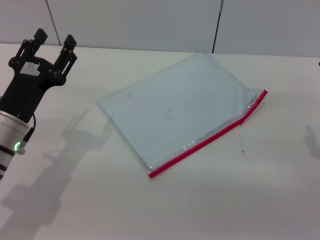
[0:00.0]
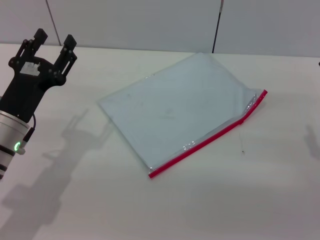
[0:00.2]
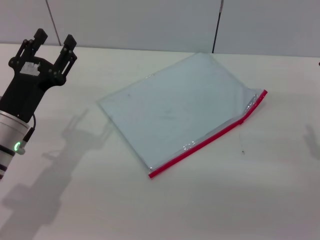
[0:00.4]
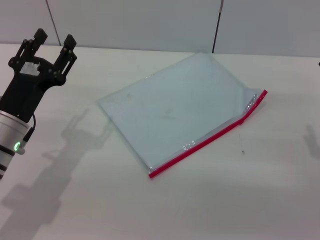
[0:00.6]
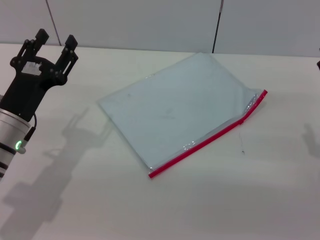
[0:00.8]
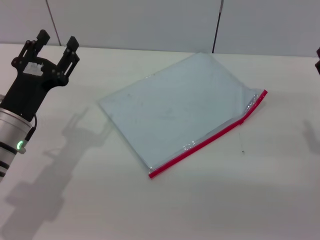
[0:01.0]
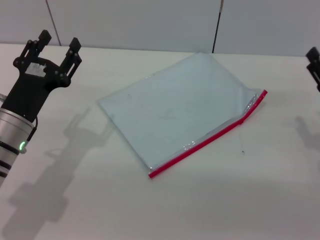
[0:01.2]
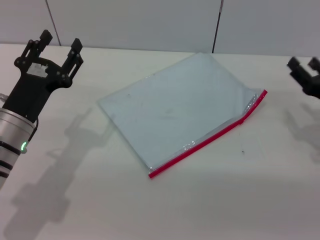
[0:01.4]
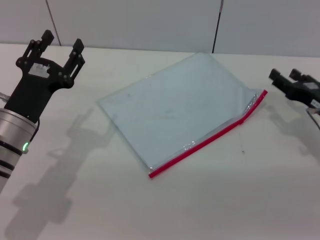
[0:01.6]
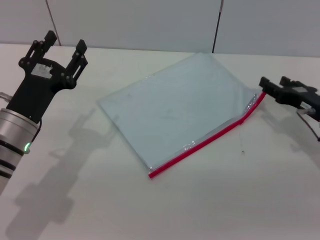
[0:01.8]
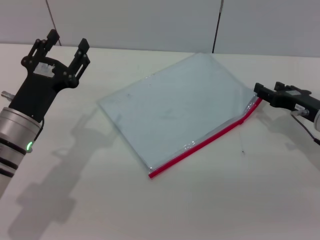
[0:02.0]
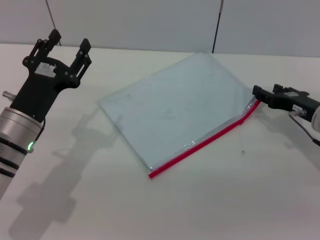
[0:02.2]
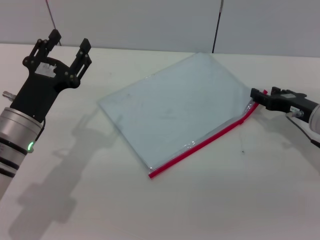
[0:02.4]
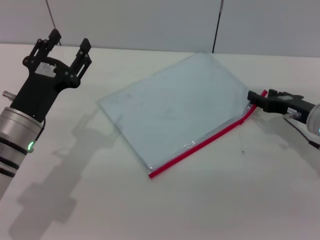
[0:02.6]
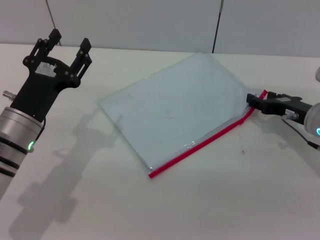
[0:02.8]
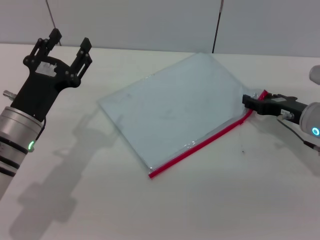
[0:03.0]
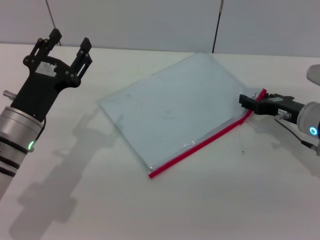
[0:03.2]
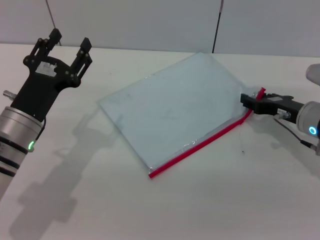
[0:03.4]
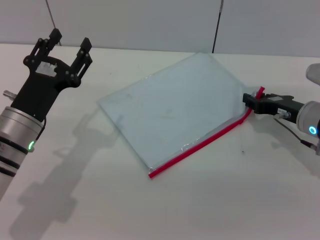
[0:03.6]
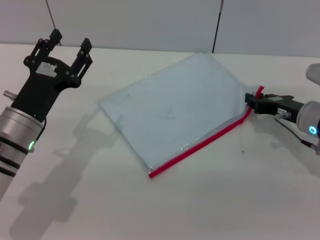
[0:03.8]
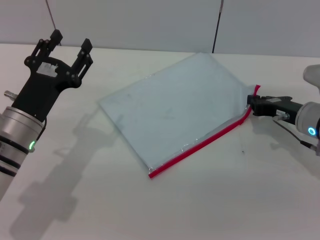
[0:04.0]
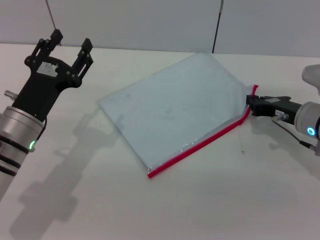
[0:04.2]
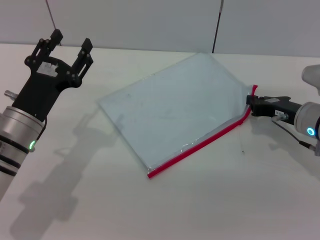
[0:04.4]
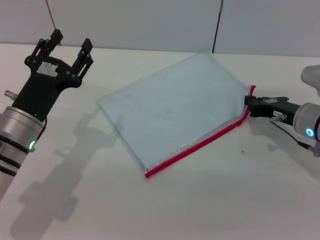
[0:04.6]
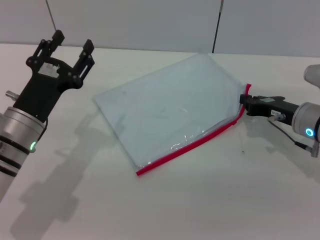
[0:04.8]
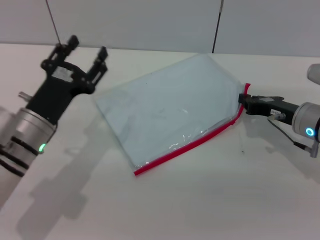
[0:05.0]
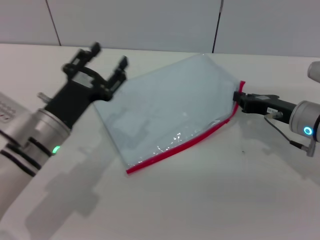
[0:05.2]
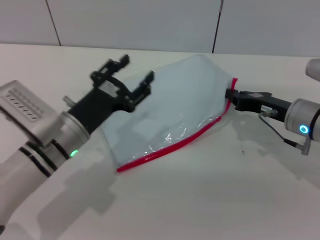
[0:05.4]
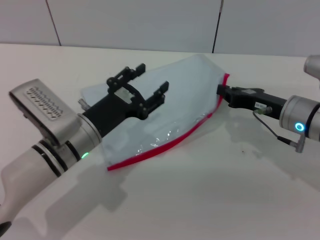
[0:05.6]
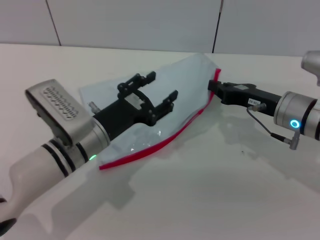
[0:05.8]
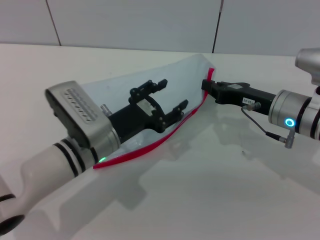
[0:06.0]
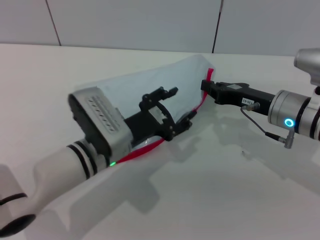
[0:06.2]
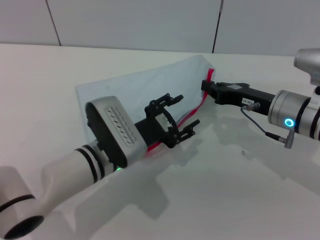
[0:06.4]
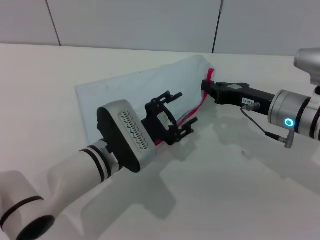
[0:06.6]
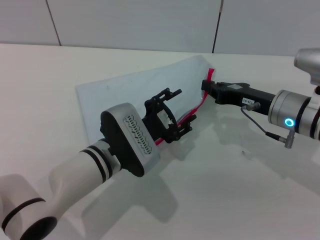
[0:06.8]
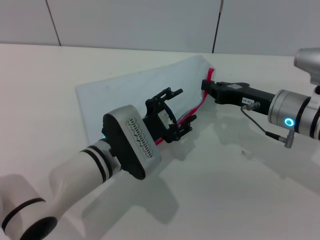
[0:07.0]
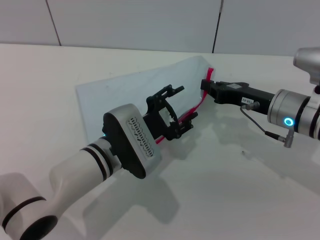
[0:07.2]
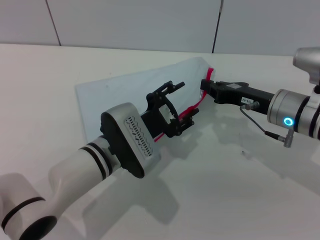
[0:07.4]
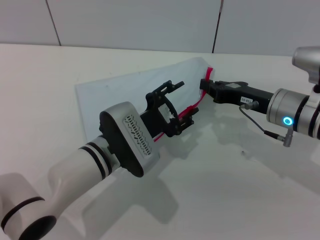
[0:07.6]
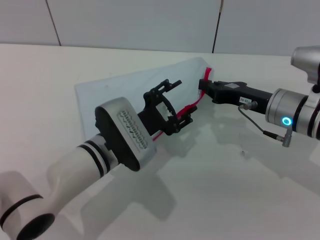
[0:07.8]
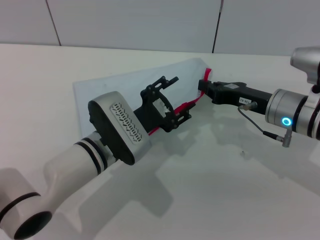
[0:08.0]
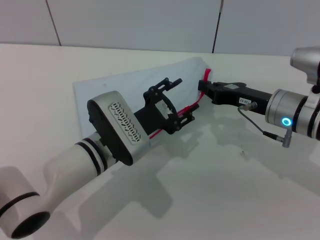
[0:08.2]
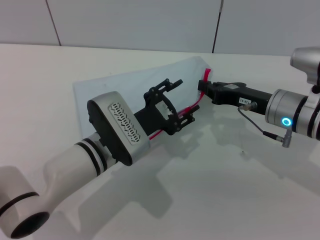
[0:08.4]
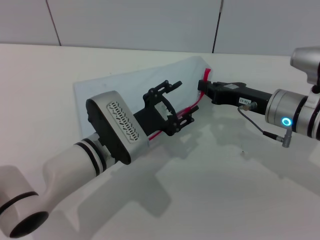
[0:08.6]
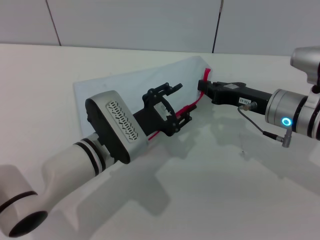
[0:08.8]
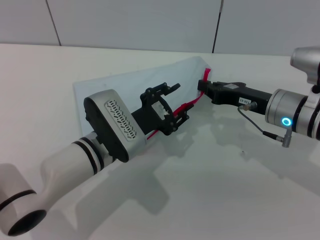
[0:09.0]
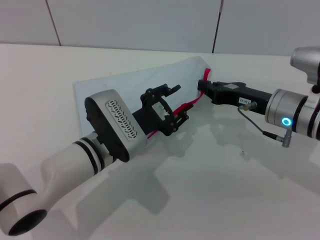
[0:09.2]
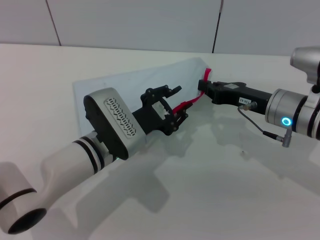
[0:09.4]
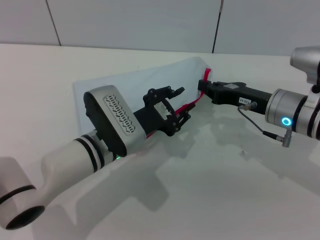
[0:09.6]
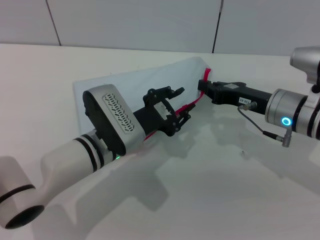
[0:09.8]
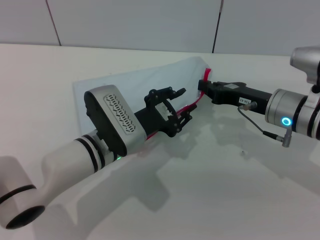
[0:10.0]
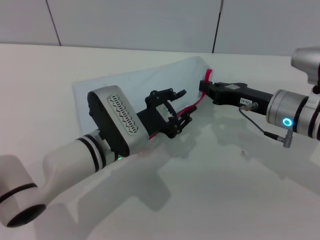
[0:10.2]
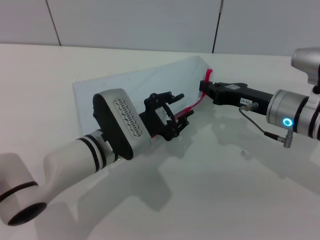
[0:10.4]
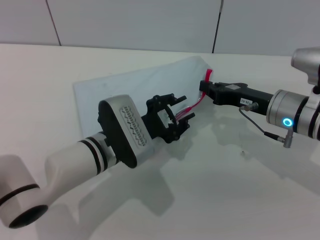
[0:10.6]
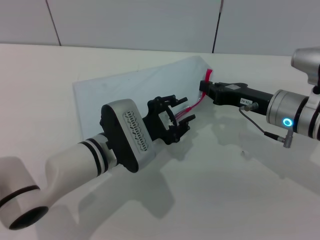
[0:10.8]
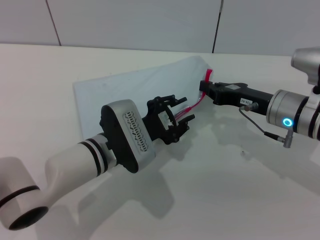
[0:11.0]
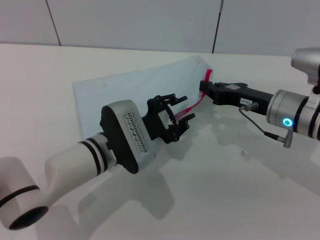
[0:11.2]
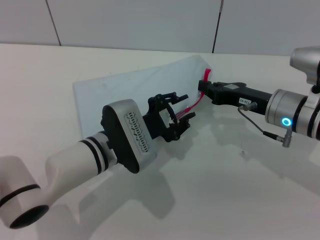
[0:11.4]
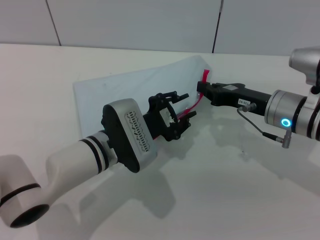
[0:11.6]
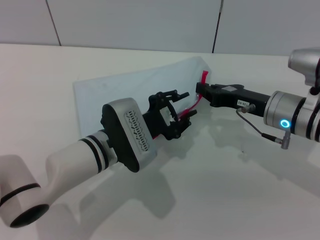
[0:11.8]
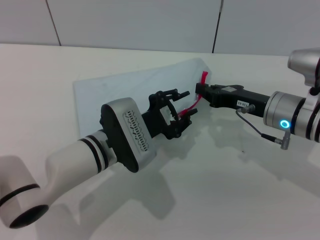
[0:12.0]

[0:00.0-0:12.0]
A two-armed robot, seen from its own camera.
Step, 0.0 to 5.4 s: Pick up the transparent plastic bag with the right gripper.
0.0 to 1.6 s: The right gripper goes about 5 cm forward.
1.6 to 3.0 s: The grippers stay close to where they were, moving slightly.
3.0 to 4.4 s: The right gripper closes.
4.4 to 6.0 s: The left gripper shifts roughly 10 cm to the right; the right gripper moves roughly 5 cm.
7.6 to 12.0 s: The grippers move only a little.

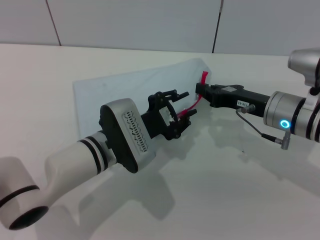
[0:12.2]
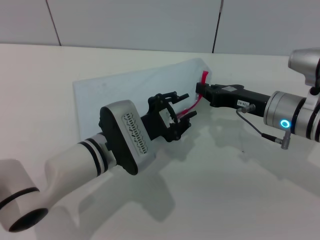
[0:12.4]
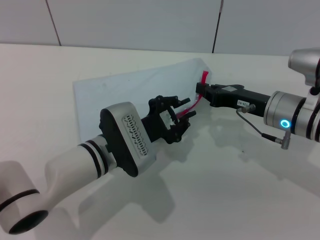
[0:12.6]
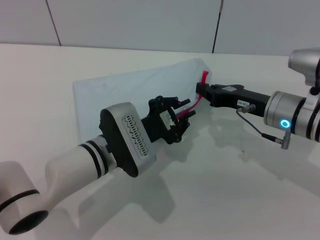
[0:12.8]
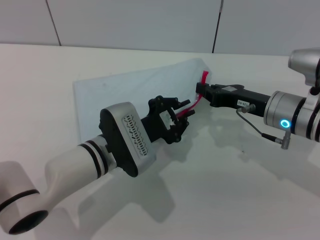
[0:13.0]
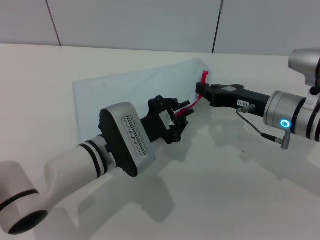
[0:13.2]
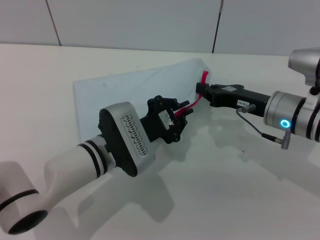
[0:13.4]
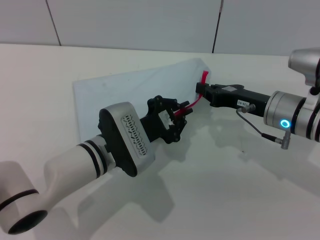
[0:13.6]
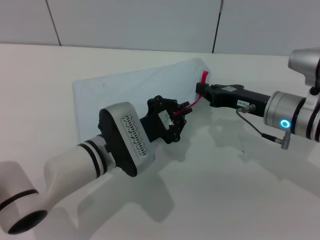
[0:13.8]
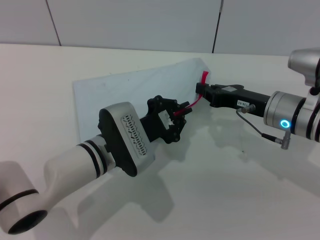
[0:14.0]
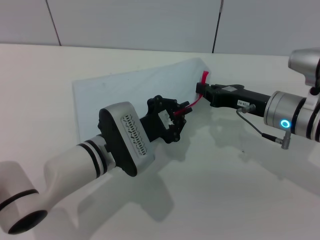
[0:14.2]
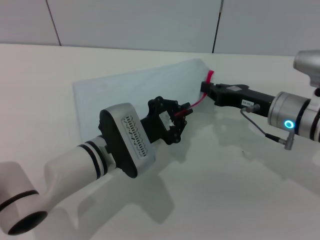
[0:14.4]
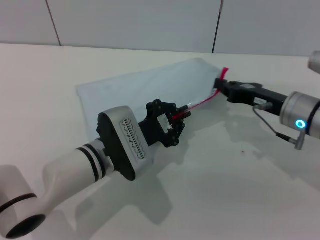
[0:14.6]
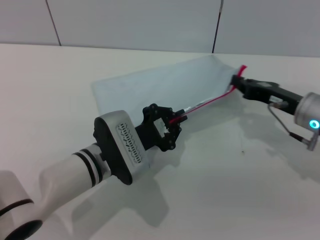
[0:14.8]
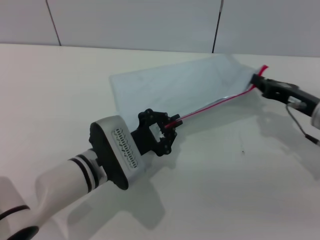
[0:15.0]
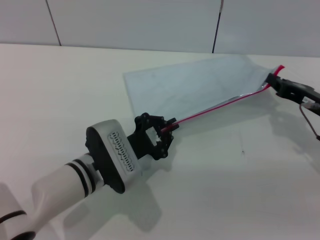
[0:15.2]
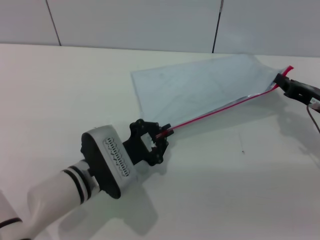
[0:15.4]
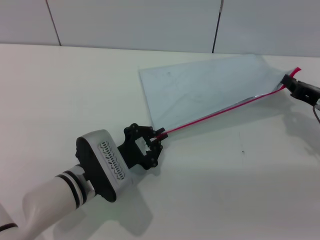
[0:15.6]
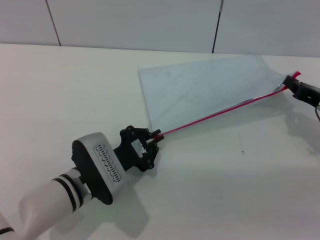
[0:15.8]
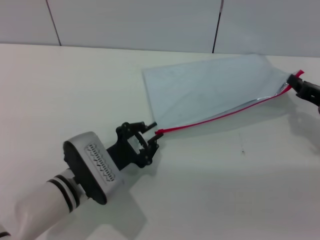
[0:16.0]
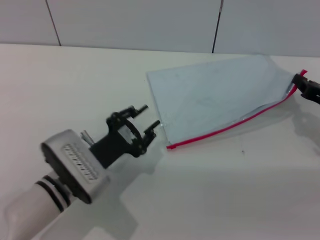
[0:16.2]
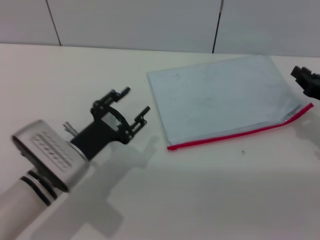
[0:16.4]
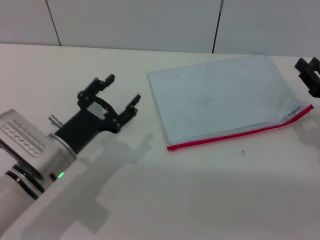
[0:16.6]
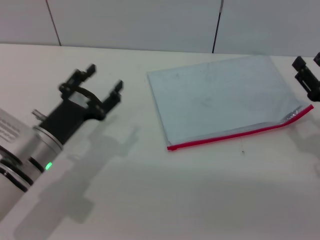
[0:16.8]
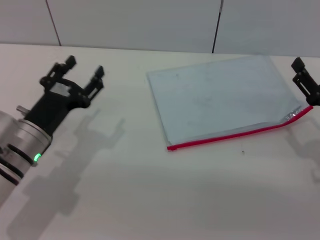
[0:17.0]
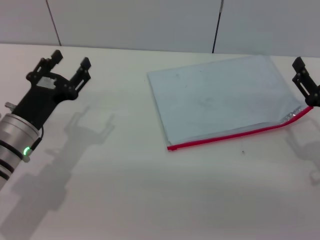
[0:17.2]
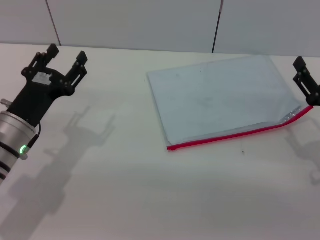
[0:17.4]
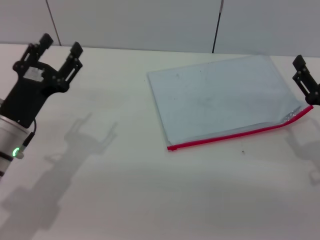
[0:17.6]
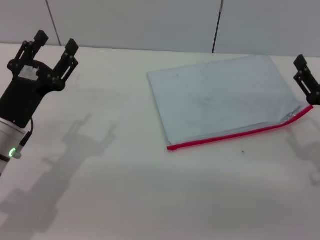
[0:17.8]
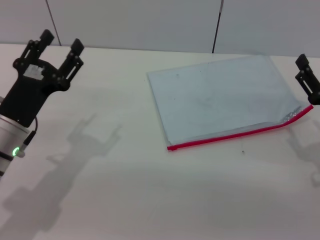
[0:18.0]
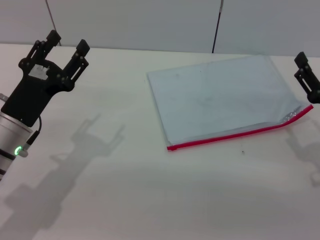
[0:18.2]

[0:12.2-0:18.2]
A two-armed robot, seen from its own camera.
Step, 12.2 to 16.0 s: Pulling up the zipper on the transparent plastic bag with the left gripper to close it.
Step, 16.2 to 16.6 s: Place the transparent plastic bag.
12.2 to 13.8 s: The left gripper closes.
13.8 to 15.2 s: The right gripper is displaced to the right by roughly 10 cm.
15.2 to 16.6 s: The left gripper shifts some 5 cm to the left, and opens up.
16.6 to 18.2 s: The right gripper shifts by about 5 cm, and opens up; the left gripper changes place by approximately 5 cm.

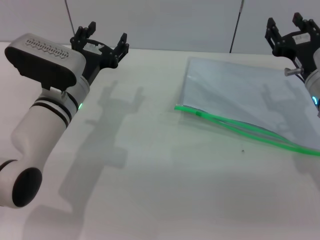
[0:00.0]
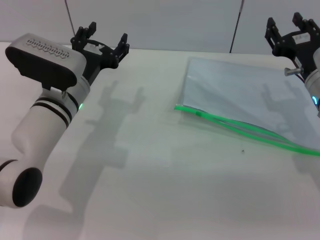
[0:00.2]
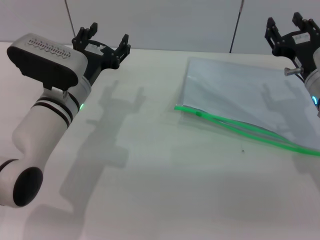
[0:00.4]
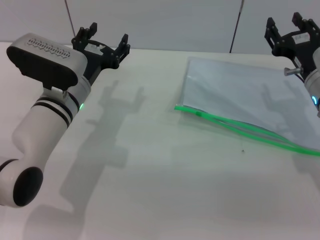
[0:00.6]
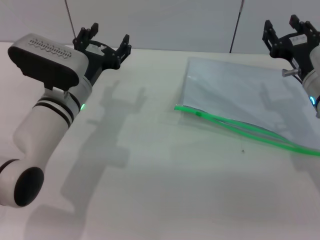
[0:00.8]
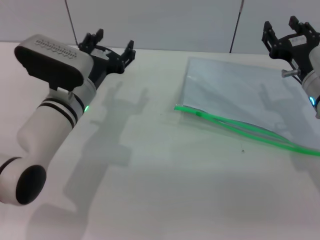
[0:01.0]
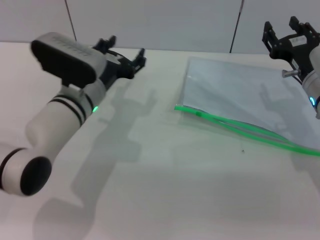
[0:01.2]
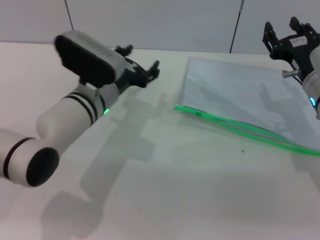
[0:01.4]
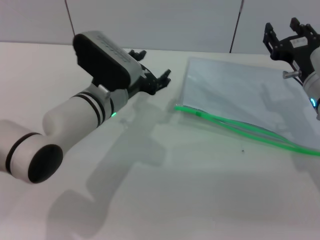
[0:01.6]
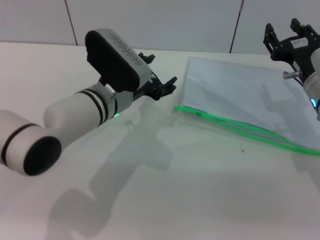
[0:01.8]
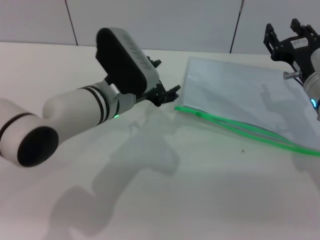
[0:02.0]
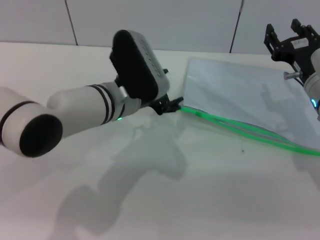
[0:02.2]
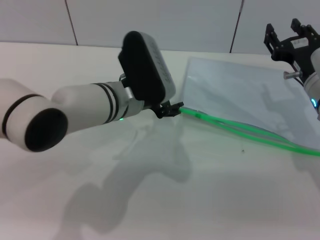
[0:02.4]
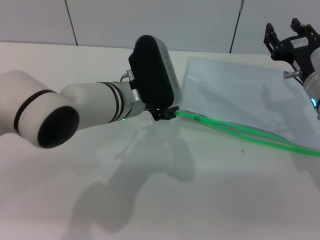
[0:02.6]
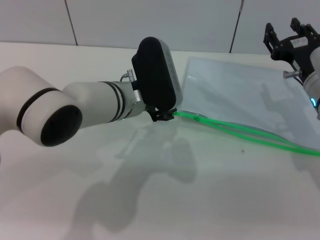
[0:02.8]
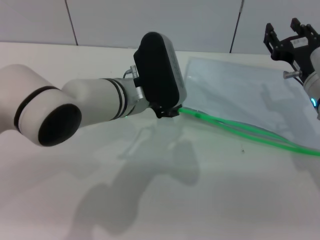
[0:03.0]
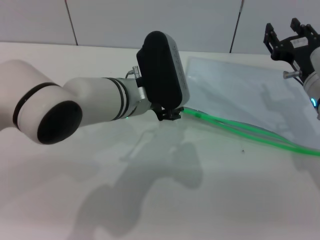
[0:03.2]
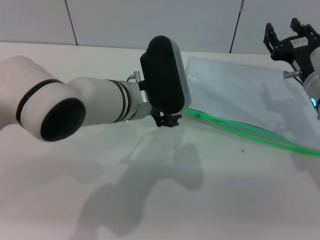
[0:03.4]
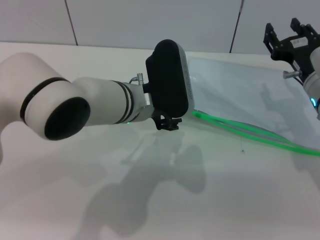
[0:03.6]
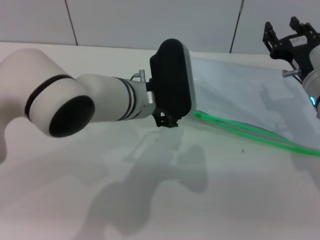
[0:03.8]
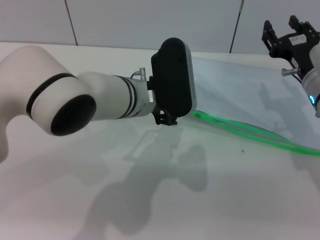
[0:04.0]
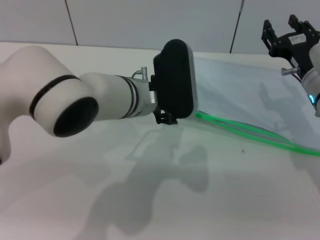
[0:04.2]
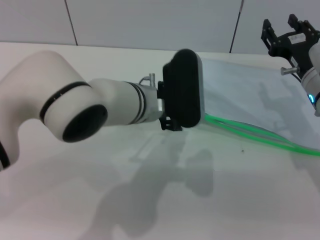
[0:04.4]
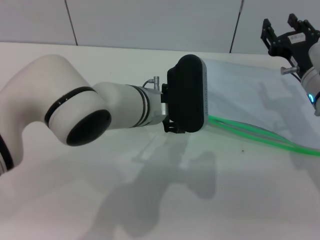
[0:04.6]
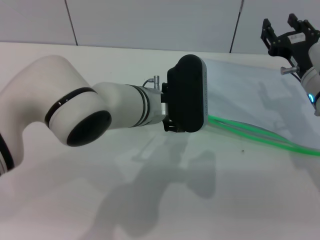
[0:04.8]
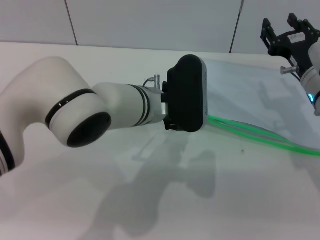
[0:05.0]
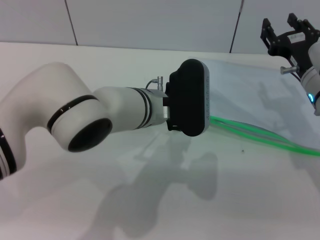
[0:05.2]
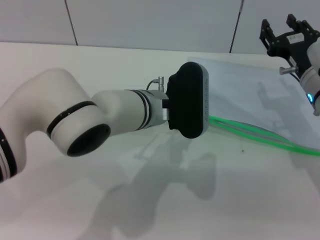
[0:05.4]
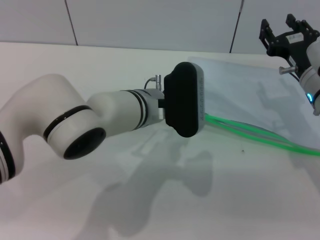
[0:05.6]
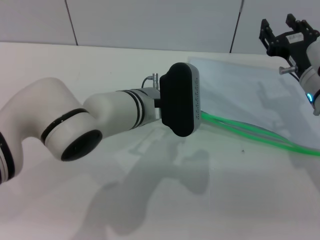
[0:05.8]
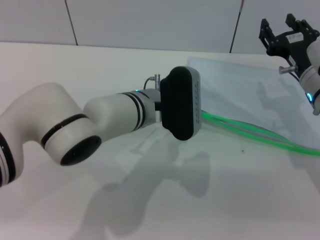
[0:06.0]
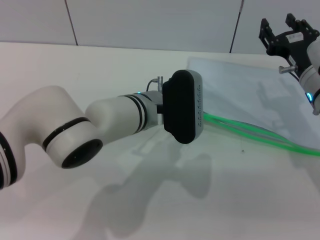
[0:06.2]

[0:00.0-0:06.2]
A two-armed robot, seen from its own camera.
0.0 to 1.6 s: The left gripper is displaced to the right by some 5 cm.
1.6 to 3.2 s: The left gripper ends up roughly 5 cm from where it was.
3.2 to 6.2 s: The grippers move only a little.
